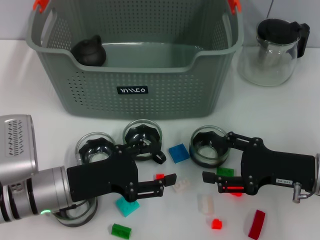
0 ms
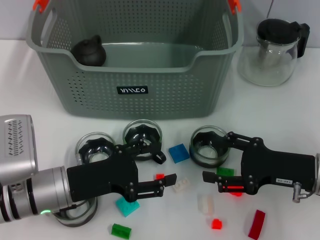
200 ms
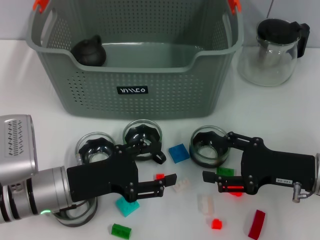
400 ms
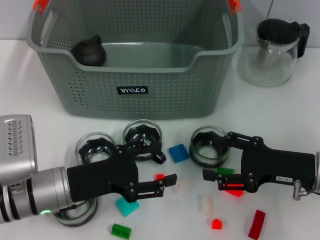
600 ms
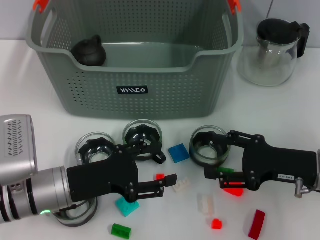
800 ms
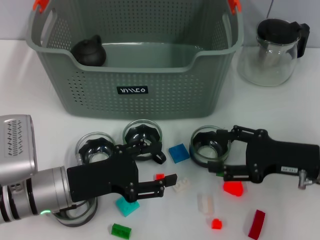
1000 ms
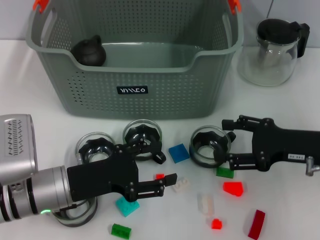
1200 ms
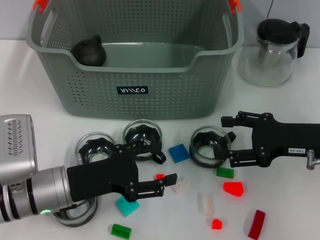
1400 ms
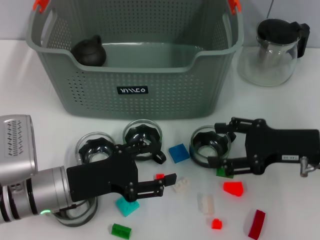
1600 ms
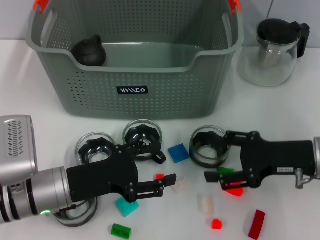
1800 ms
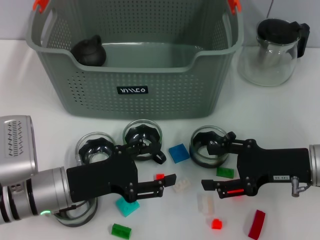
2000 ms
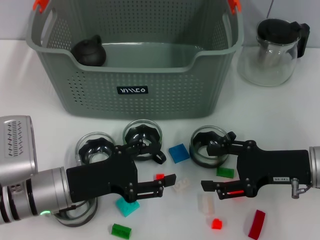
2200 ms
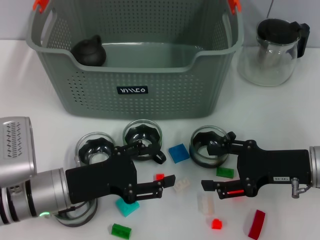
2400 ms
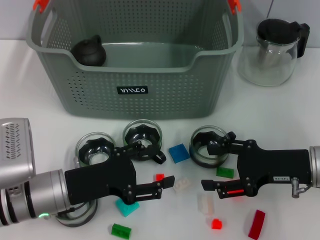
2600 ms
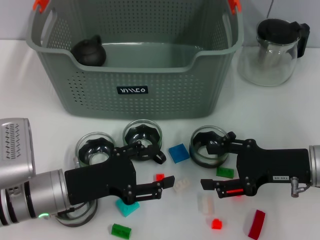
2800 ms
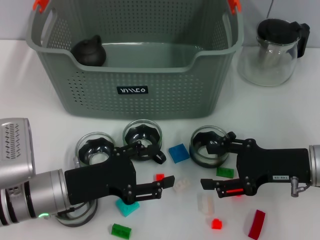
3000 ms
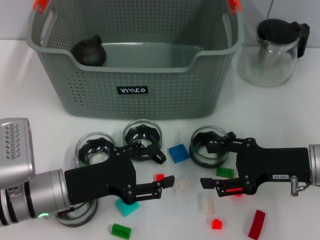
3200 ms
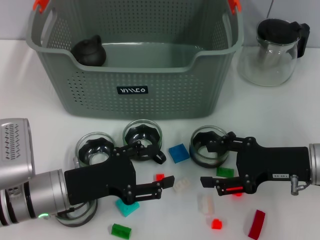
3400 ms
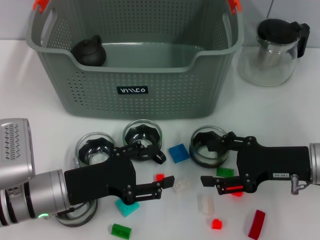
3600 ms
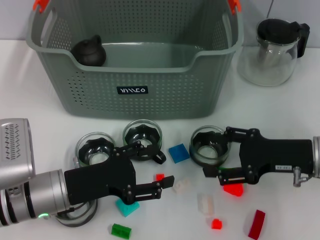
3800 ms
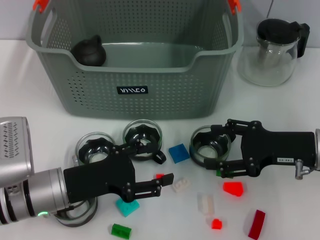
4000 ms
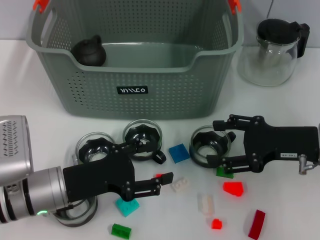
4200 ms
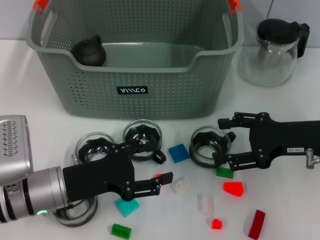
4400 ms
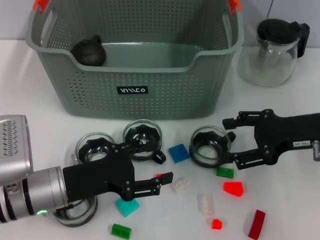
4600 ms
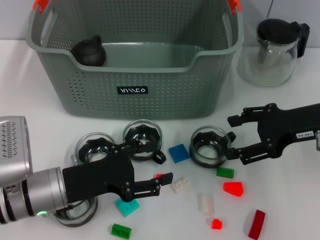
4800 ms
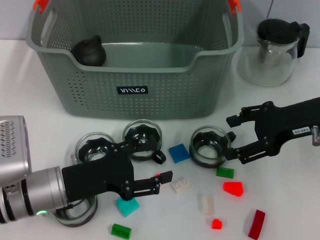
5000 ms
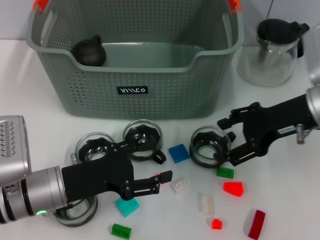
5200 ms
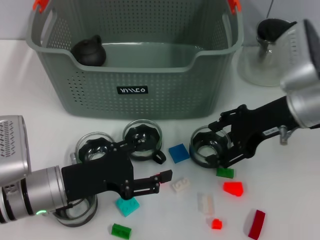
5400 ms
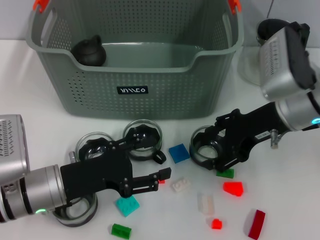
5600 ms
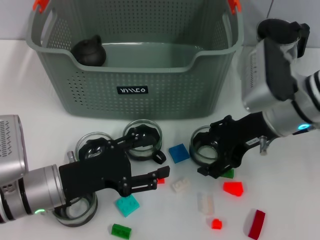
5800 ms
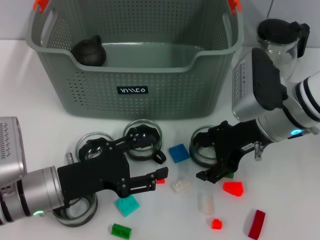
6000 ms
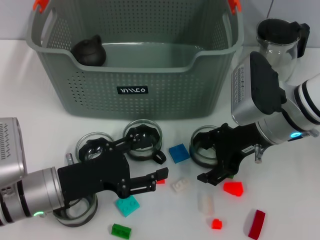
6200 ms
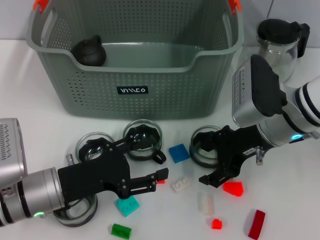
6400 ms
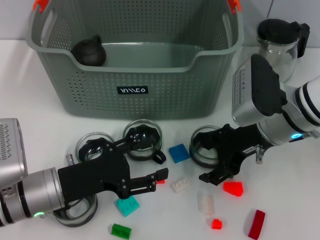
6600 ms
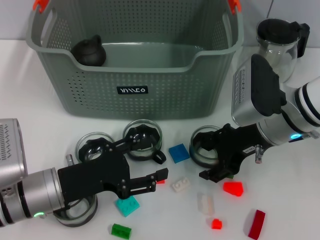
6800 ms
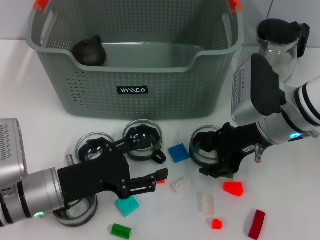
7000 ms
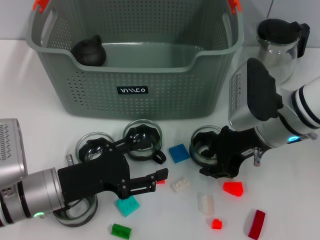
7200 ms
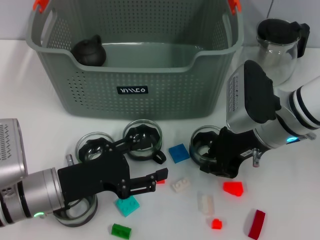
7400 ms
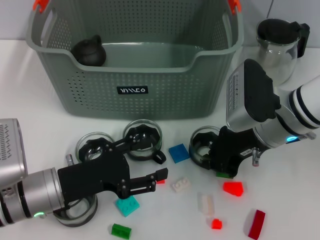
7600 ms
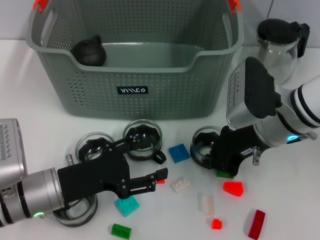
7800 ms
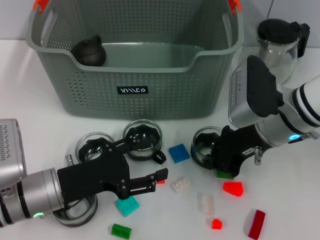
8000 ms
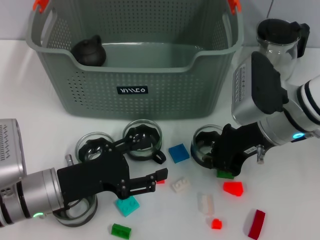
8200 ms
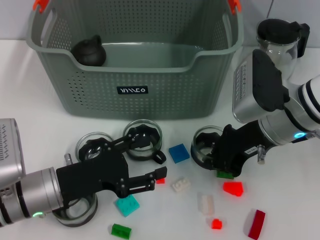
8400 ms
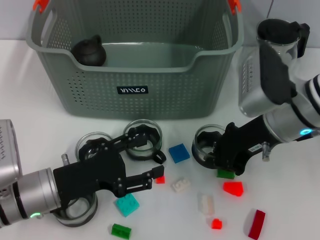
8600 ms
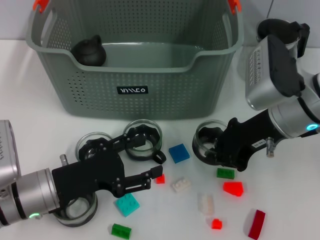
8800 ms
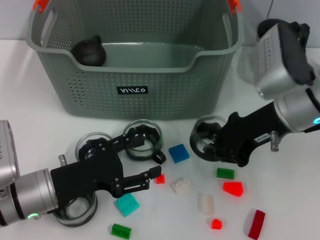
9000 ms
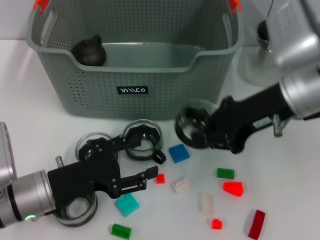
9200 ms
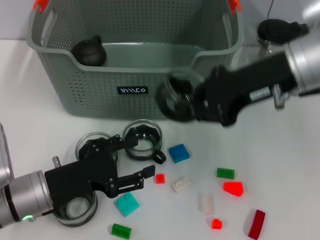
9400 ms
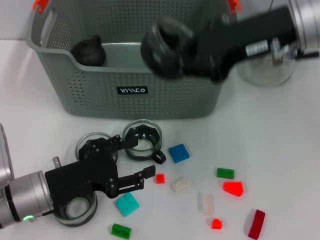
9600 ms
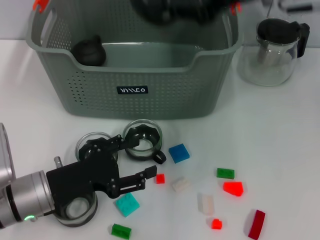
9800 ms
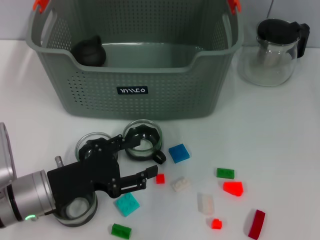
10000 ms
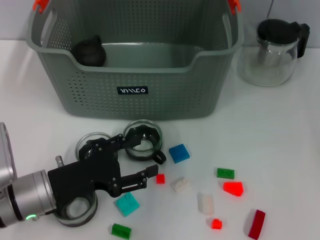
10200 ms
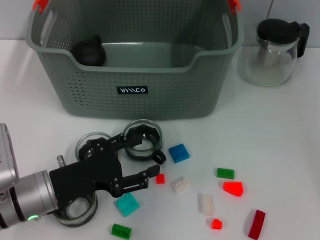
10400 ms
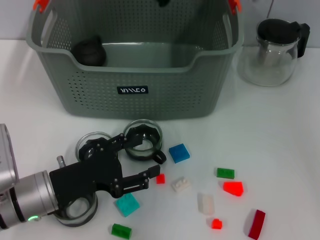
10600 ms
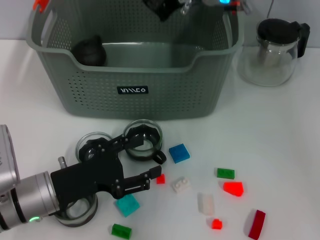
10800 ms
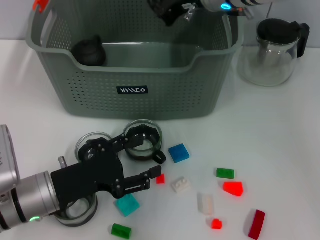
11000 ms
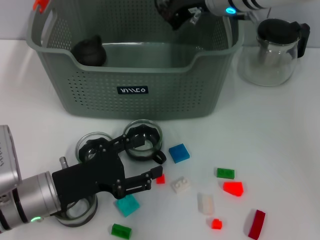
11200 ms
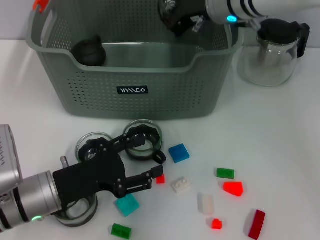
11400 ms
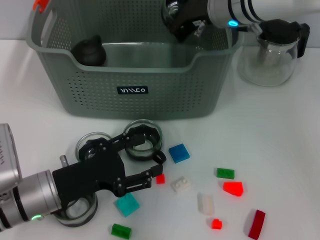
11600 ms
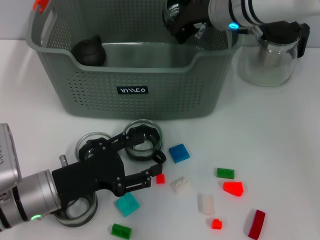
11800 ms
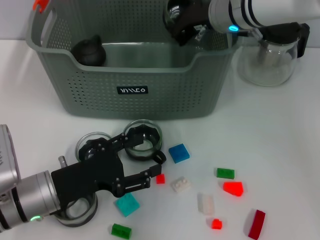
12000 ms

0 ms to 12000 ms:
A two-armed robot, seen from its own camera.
Task of the whole recording: pick up the teacup on the table and place it into the storage bin, pick up the block on the table and place it into the storage bin.
Step, 0 ms to 7400 ms: Grasp the cup with right gripper.
0 ms to 4400 ms: The grippers make only small movements.
4400 ms to 6000 ms: The right gripper moves to the left, about 10 cm.
6000 ms to 7600 ms: The right gripper closes up.
7600 ms to 9000 ms: The right gripper heads upward, covering approximately 5 cm.
9000 ms to 10400 ms: The right gripper travels upward, forward and to the left by approximately 20 cm.
10400 ms to 12000 ms: The right gripper travels downward by about 10 cm.

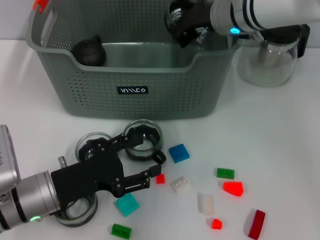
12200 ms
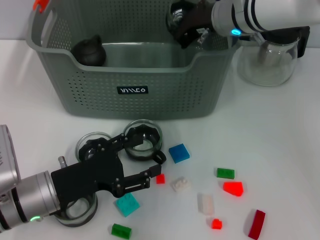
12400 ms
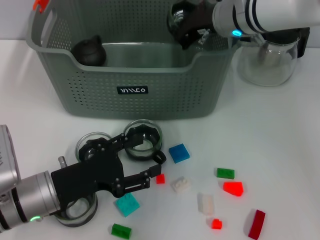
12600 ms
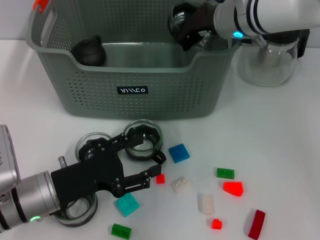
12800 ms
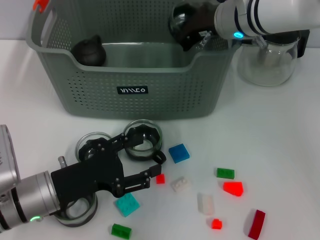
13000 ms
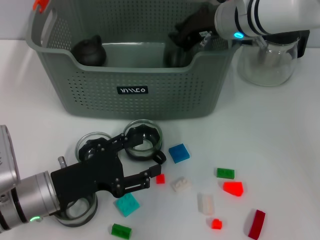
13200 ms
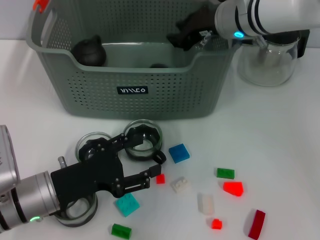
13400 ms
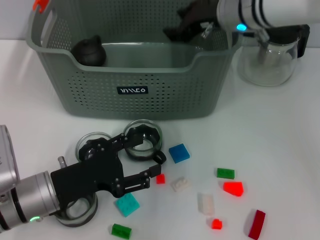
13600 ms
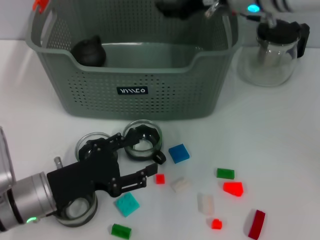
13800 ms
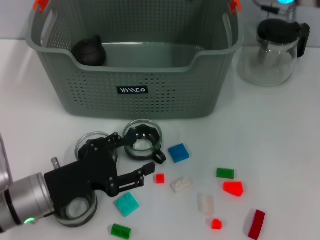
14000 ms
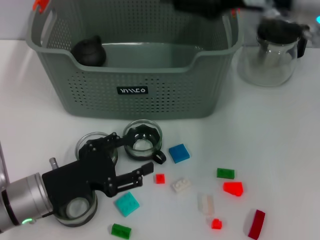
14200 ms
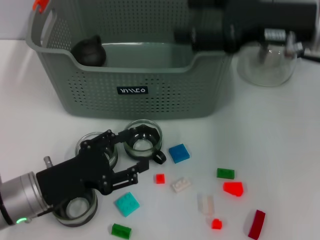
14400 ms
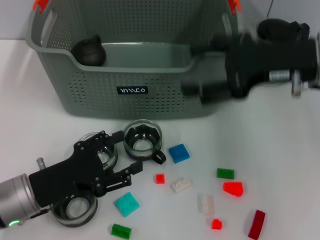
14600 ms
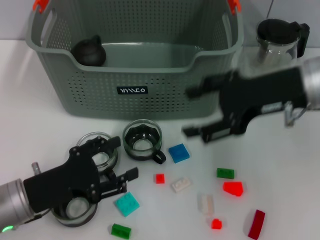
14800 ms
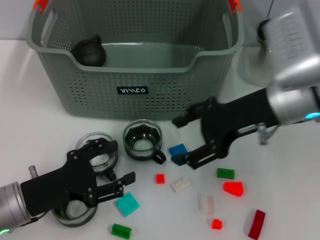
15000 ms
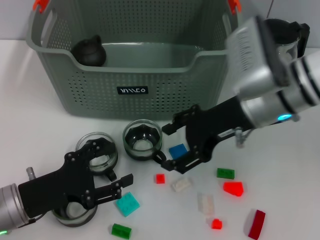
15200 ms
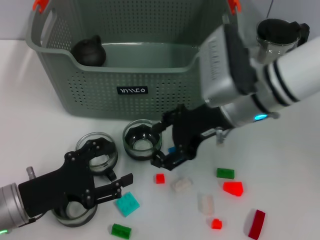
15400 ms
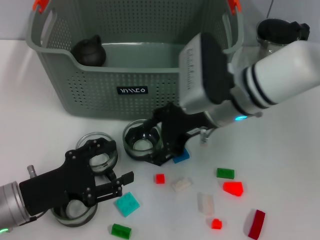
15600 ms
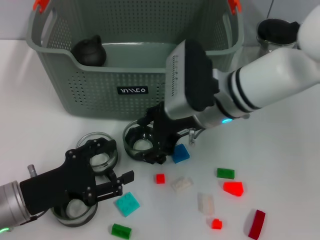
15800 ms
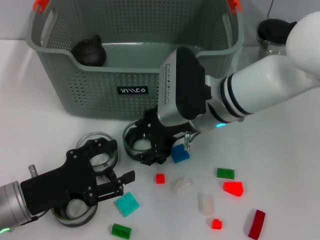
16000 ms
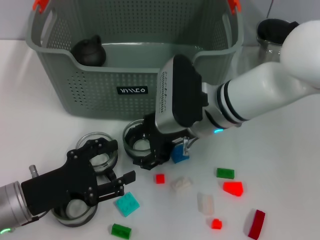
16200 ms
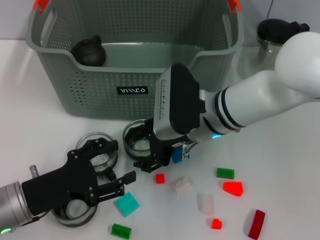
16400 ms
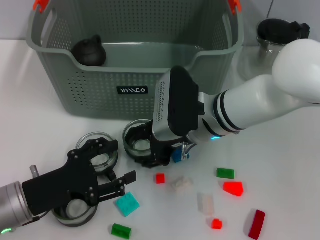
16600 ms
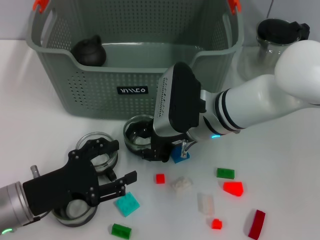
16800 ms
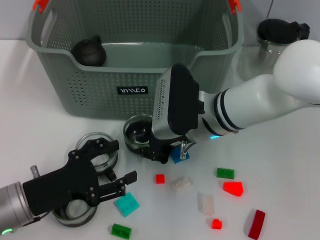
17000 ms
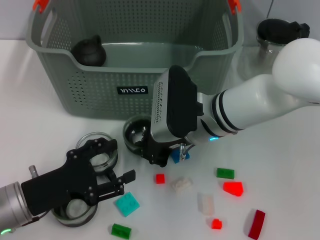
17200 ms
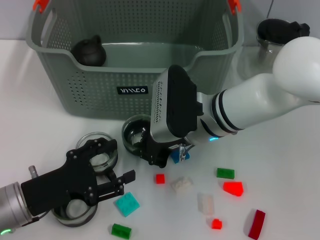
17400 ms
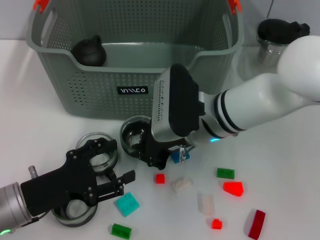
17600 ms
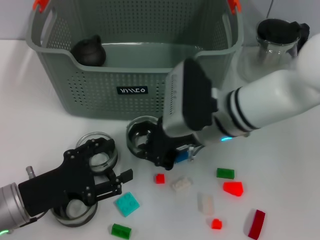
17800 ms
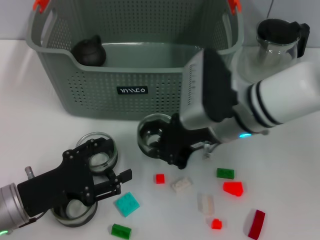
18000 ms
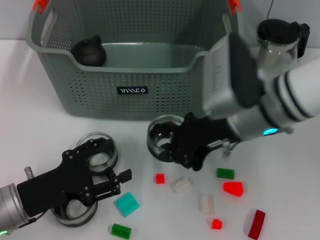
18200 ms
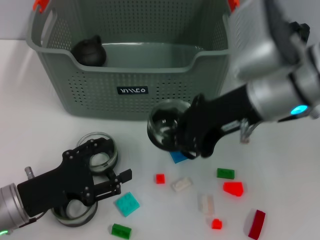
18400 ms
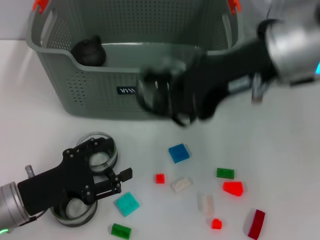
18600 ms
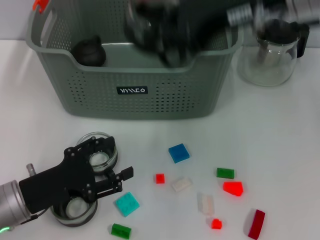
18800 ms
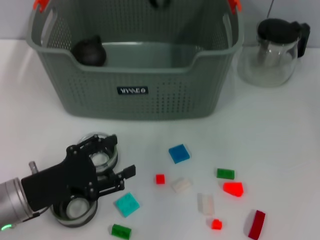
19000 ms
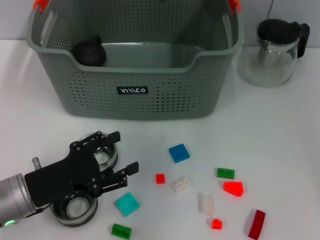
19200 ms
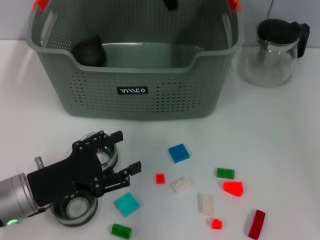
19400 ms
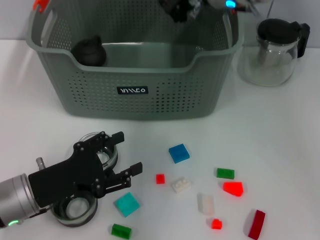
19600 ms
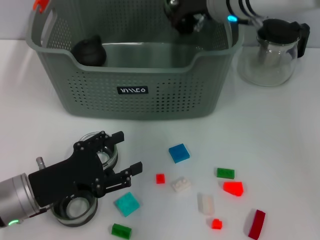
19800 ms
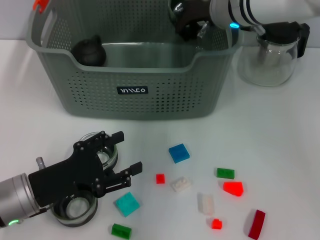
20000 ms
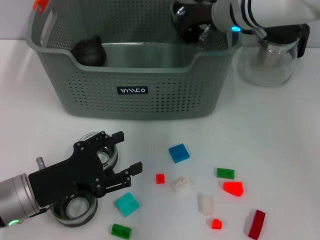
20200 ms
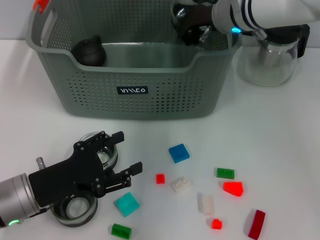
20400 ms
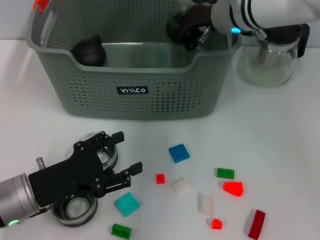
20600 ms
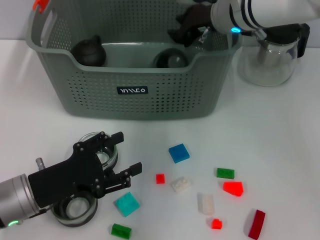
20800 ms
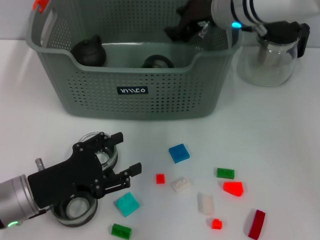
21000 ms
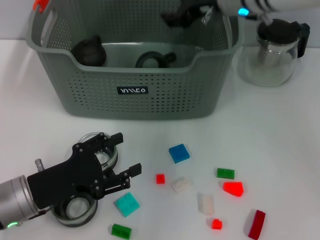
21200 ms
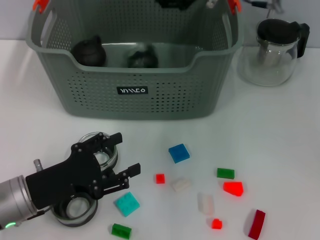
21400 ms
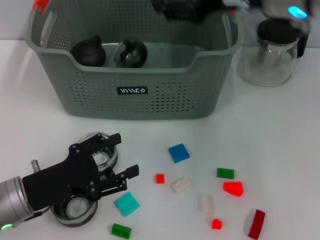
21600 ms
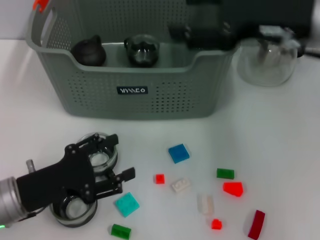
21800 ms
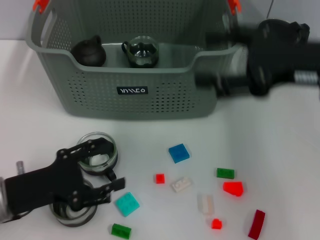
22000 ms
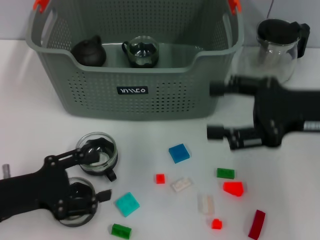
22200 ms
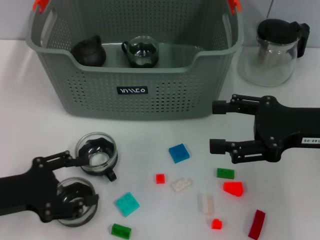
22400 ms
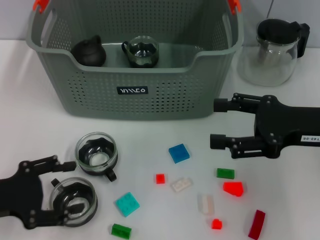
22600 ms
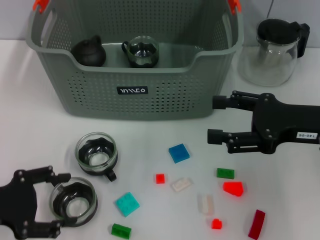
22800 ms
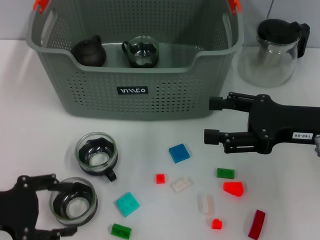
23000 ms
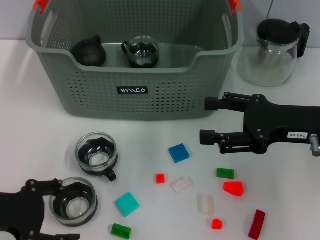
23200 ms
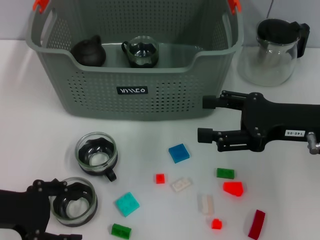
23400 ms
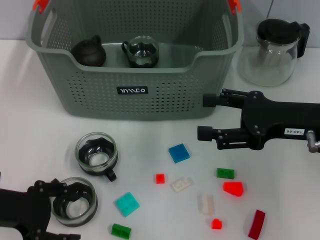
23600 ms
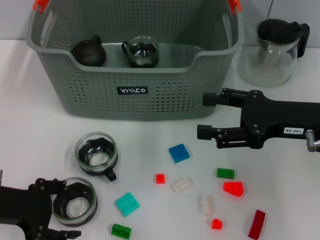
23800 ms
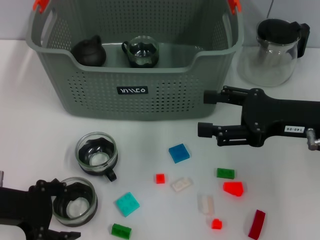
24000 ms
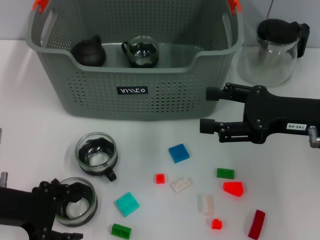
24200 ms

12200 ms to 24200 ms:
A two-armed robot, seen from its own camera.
Task of the whole recording: pick up the teacup on the table and place it into the storage bin, pick up the block on the table and place it into the storage bin.
Step, 13600 ms to 17000 ms: Grasp the cup with right gripper.
Step, 17200 ms to 21400 ms: Place the cup in the storage box with right gripper.
12200 ms to 13800 ms: The right gripper shifts by about 5 cm, and opens.
13800 ms to 15200 ms: The right gripper goes about 10 cm backward and downward.
15200 ms to 16600 ms: The right gripper heads to the left and downward, covering approximately 10 cm.
16600 ms to 18200 ms: The right gripper heads upward and to the right, covering approximately 10 cm, and closes.
18200 ms to 19800 ms: The right gripper moves forward, approximately 15 cm, and moves about 15 cm upward and comes back.
19800 ms to 21200 ms: The right gripper opens up.
21200 ms to 22600 ms: The right gripper is displaced backward, to the right and downward by approximately 25 cm, and opens its fingers. The left gripper shifts about 10 cm to the left and upward.
